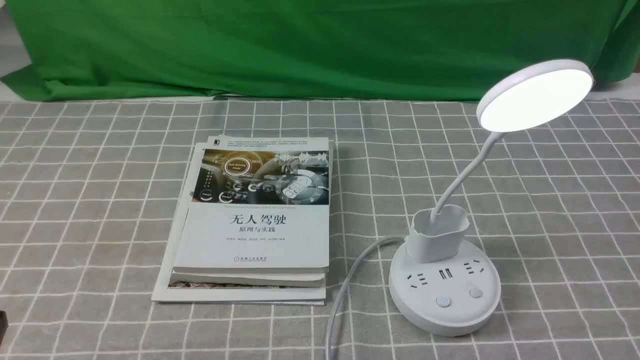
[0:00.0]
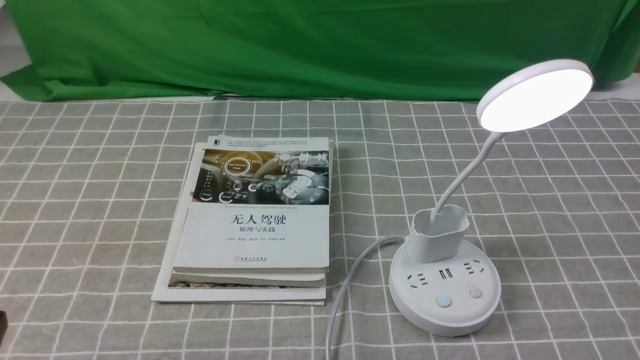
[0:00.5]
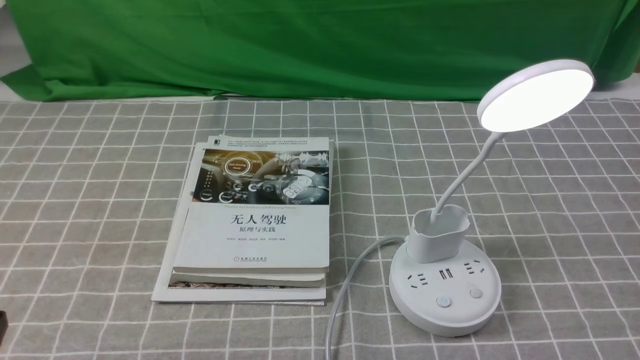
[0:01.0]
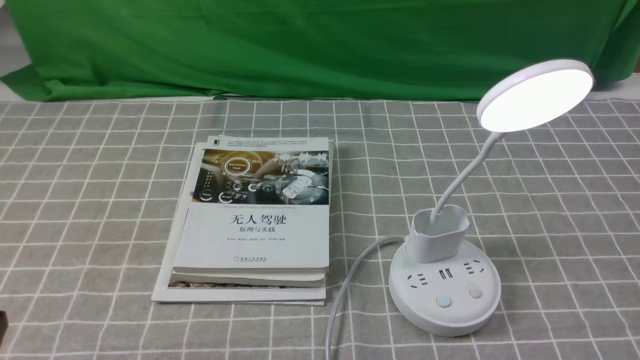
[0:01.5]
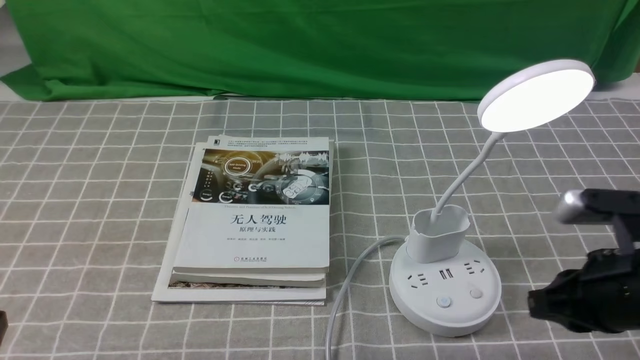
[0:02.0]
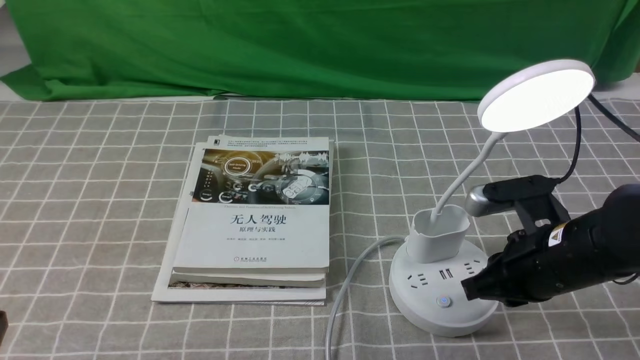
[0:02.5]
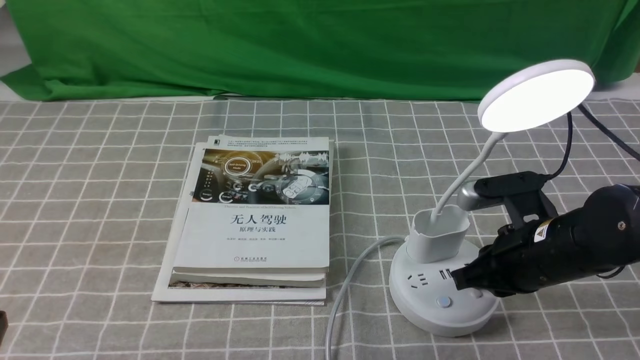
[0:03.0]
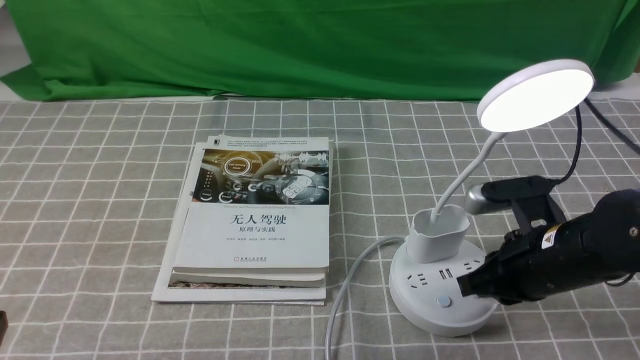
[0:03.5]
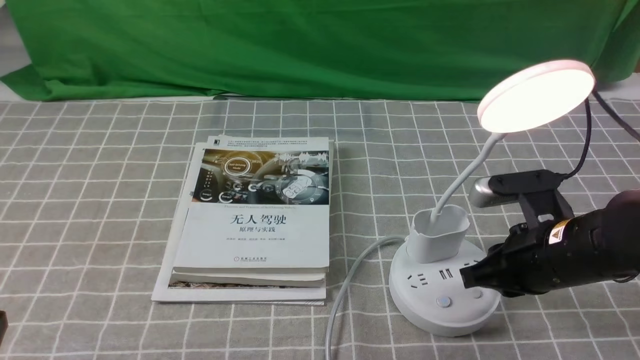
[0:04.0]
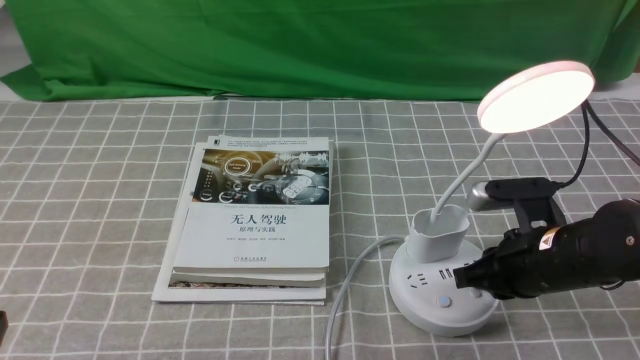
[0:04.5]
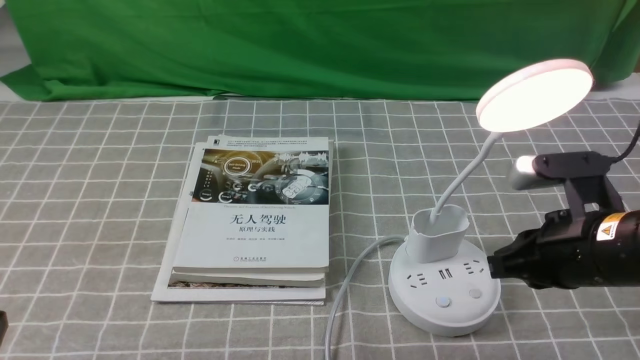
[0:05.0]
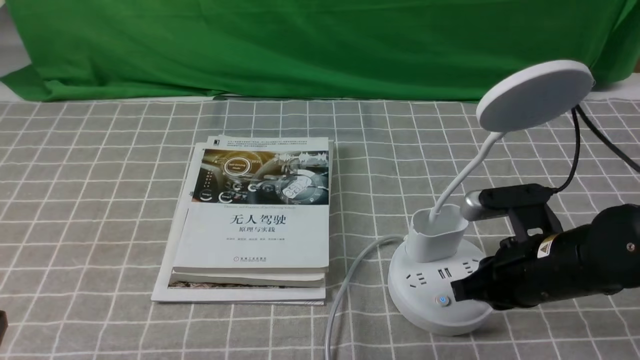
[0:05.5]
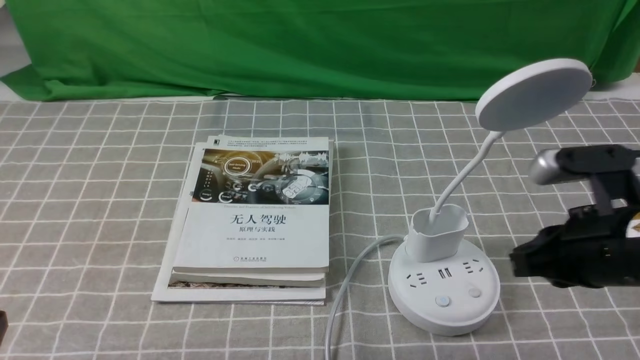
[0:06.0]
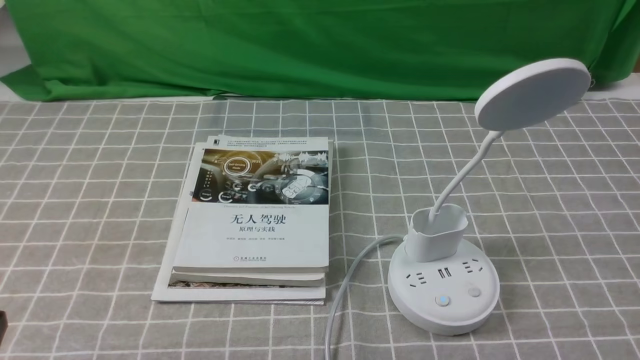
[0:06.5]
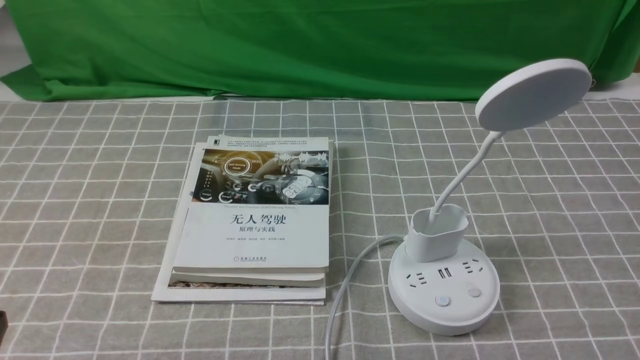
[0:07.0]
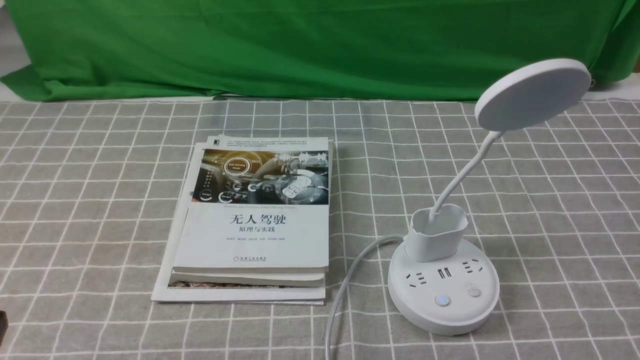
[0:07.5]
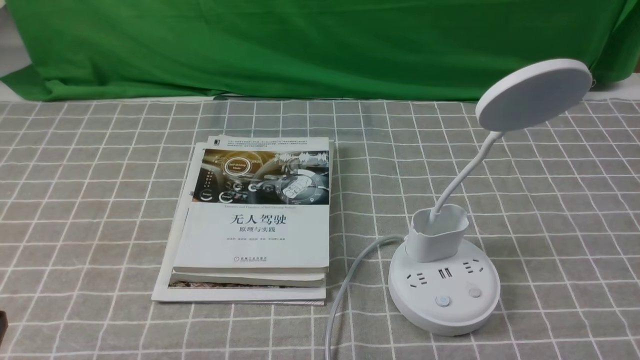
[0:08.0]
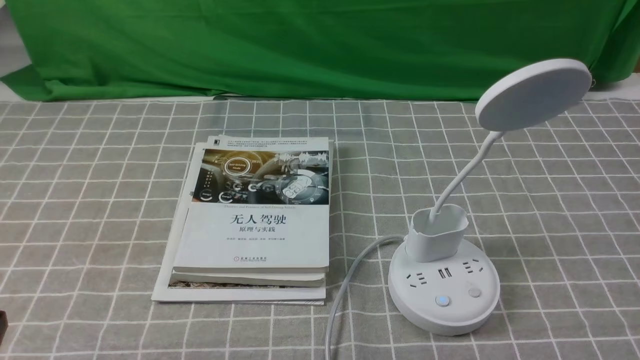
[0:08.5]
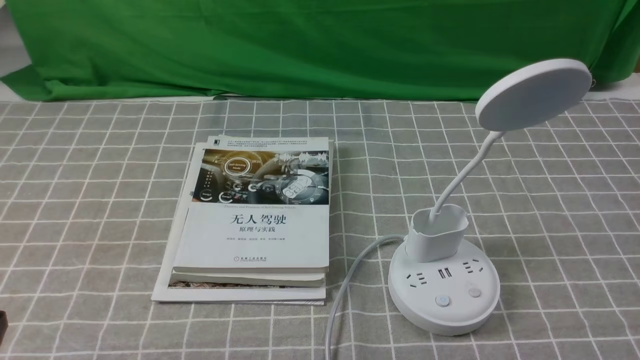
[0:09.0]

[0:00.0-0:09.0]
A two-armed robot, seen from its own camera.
Task of the whole recording: turn off the desk lamp on the grey coffee tablecloth by hand.
Step, 0:00.0 to 0:05.5: use the right arm to press the button switch on the lamp holder.
0:00.0 to 0:02.0: The right gripper is displaced forward and to the left by roughly 15 cm, and closes its fingers.
0:02.0 to 0:04.5: The right gripper shifts by roughly 10 cm.
0:04.5 to 0:07.0: The right gripper moves backward, to the right and upward, approximately 25 cm, and opens.
